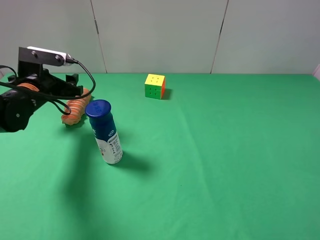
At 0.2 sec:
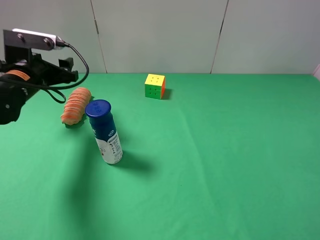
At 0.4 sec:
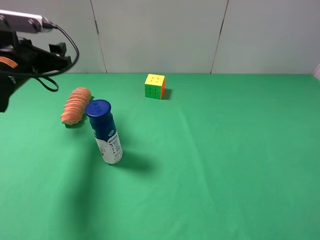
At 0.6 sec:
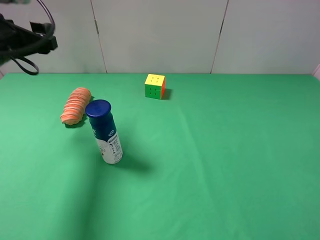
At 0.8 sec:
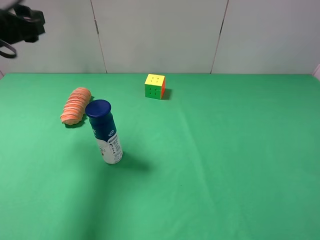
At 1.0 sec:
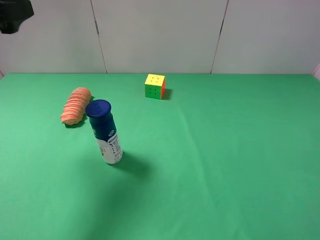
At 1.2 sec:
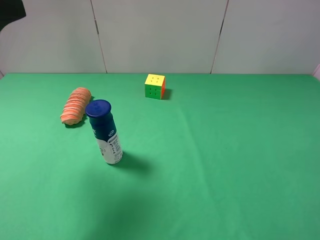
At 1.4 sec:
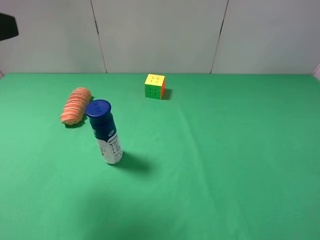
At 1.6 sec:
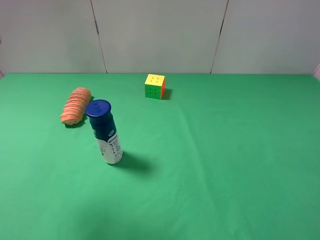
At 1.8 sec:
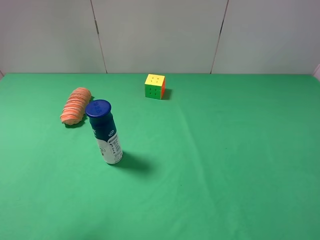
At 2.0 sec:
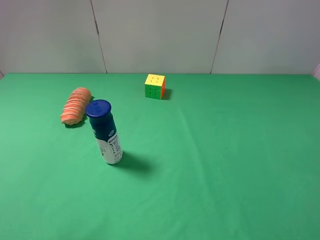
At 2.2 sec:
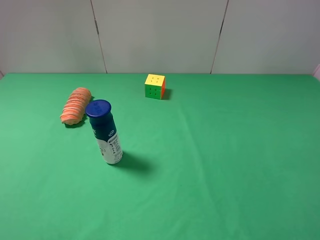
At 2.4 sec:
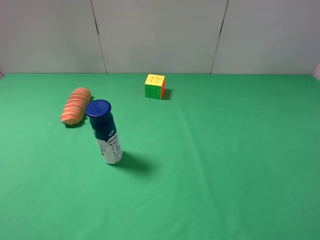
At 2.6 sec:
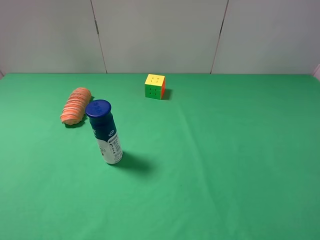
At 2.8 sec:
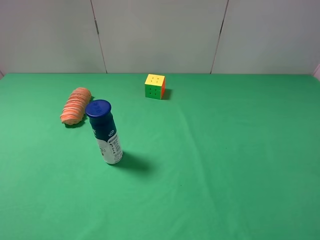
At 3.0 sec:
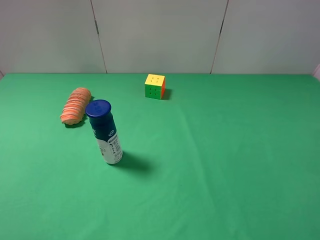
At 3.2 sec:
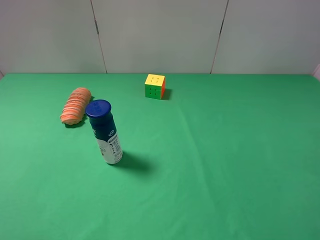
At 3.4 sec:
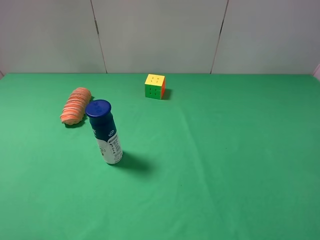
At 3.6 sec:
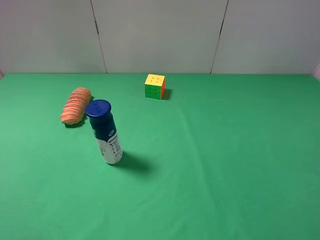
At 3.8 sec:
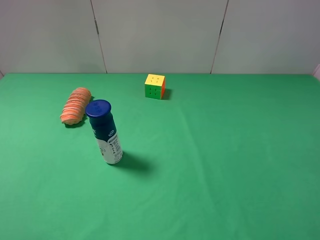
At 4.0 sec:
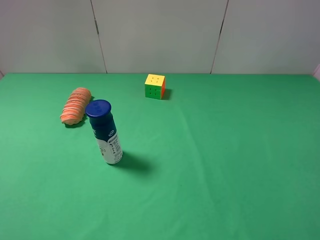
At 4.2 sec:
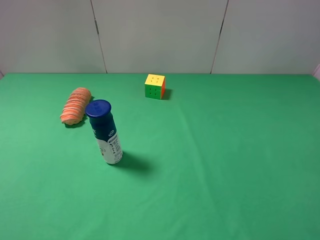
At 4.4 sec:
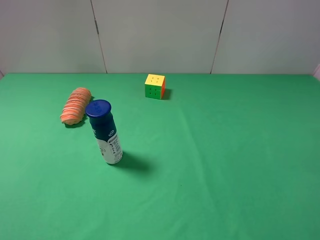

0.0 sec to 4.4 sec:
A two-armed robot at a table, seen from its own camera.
Task of the whole recording: use the right gripper to pick up the item and transfer it from the right gripper to the left gripper.
0.0 sec to 1.4 sec: The left gripper goes roughly 25 cm upward and backward.
1.4 sec to 3.0 sec: The left gripper heads backward and downward, covering about 15 cm.
